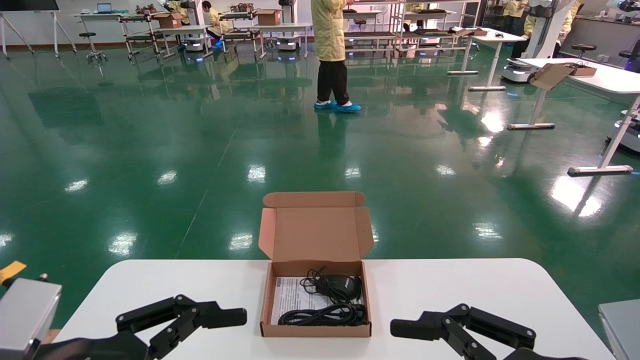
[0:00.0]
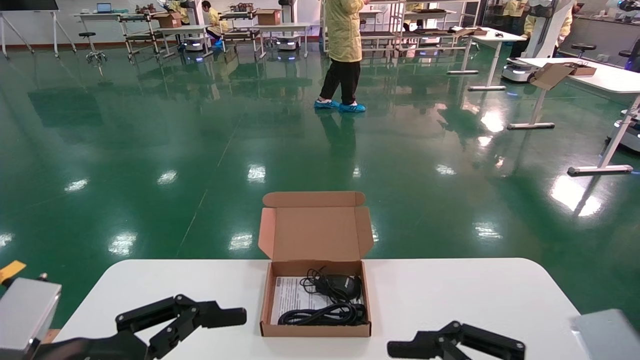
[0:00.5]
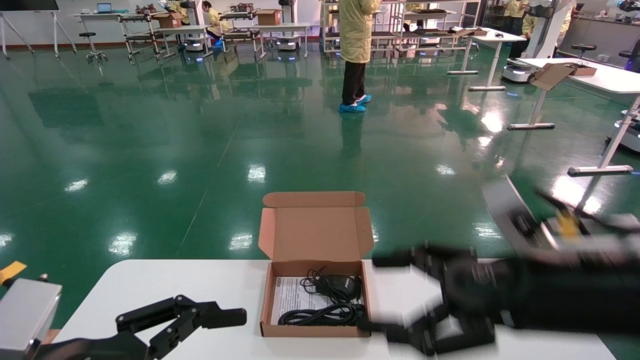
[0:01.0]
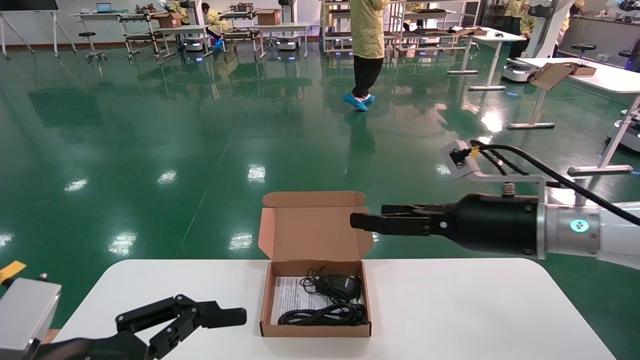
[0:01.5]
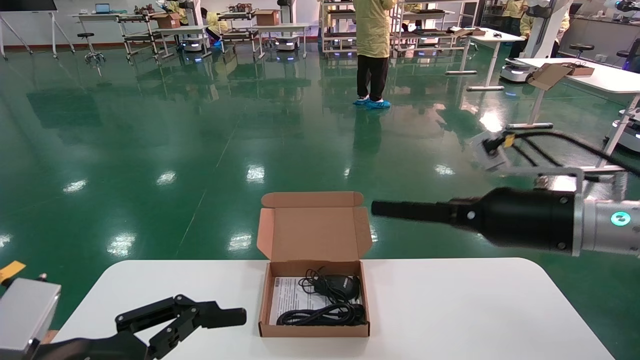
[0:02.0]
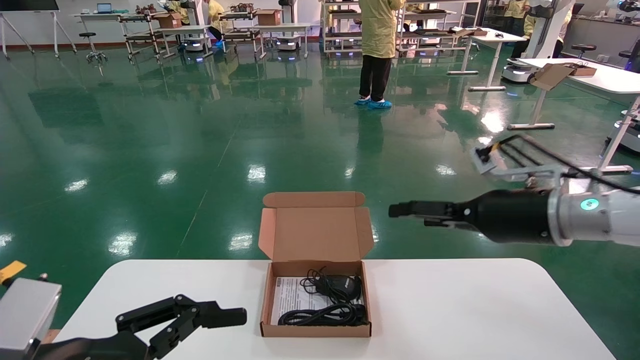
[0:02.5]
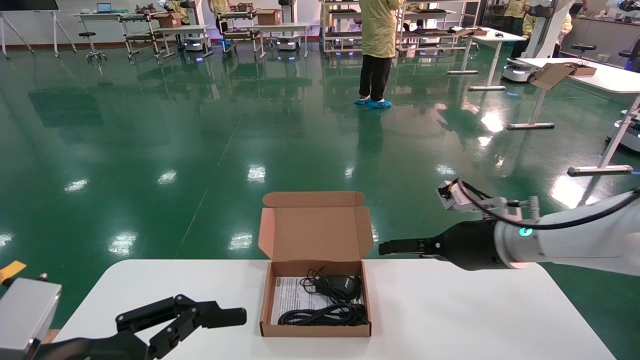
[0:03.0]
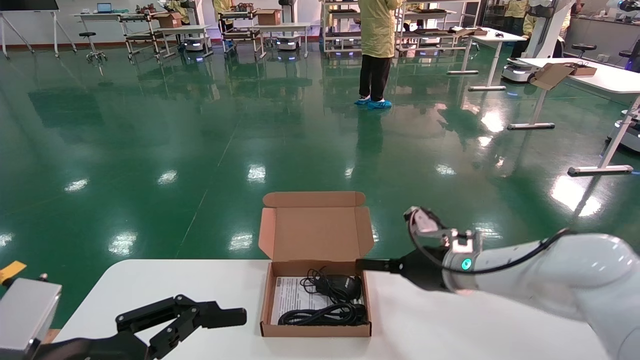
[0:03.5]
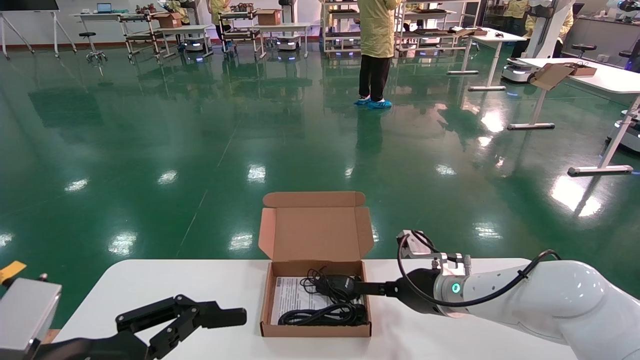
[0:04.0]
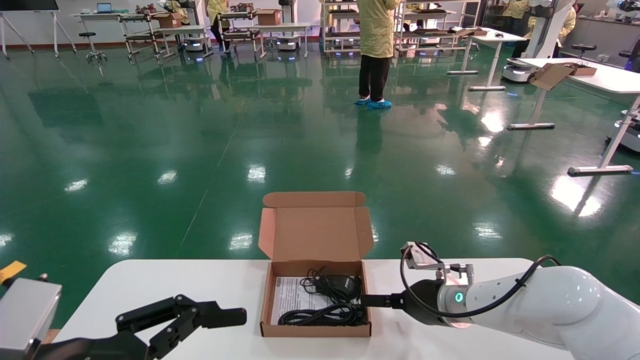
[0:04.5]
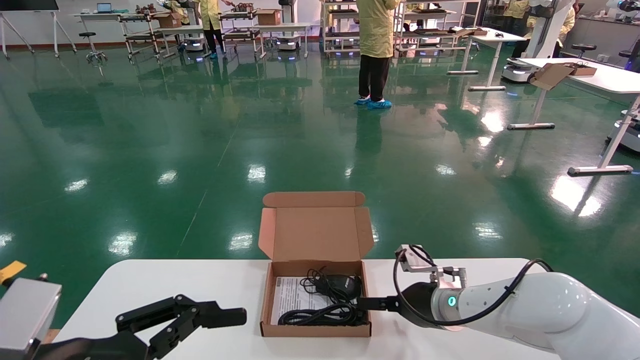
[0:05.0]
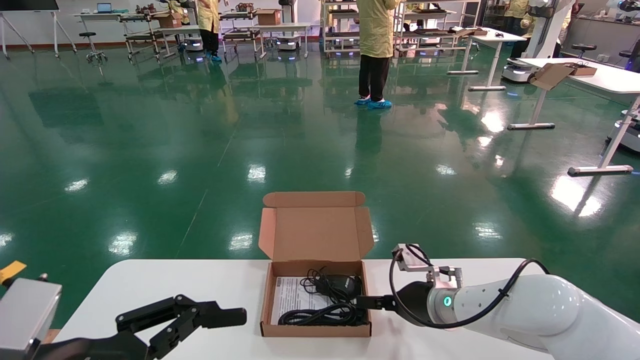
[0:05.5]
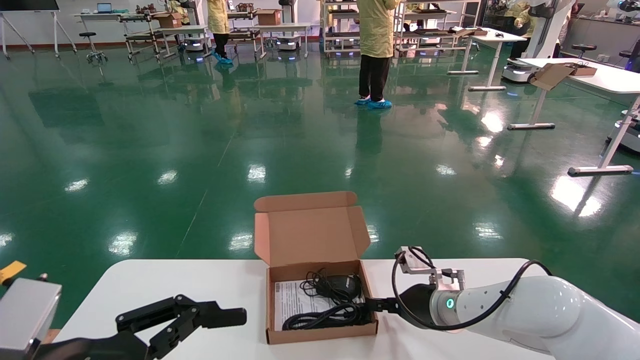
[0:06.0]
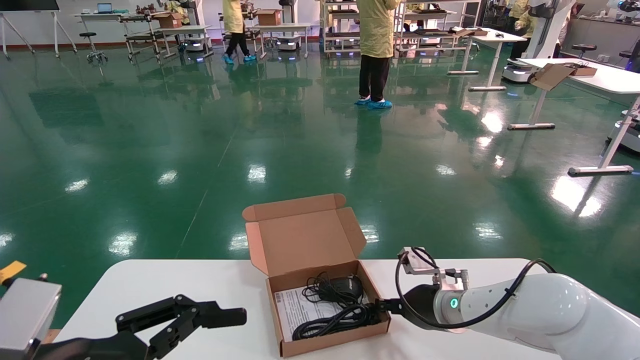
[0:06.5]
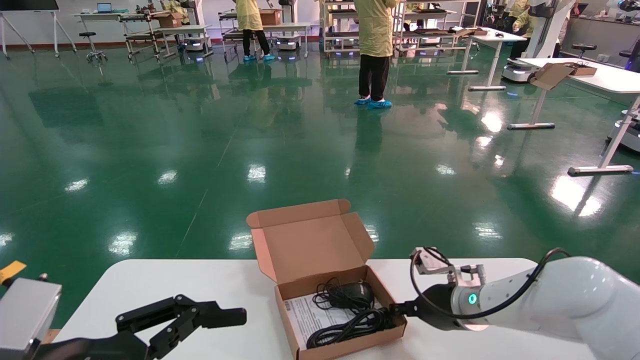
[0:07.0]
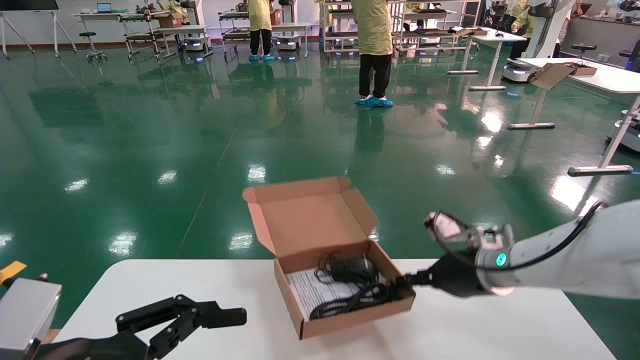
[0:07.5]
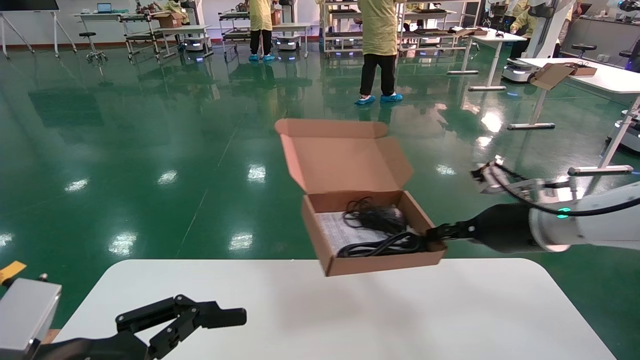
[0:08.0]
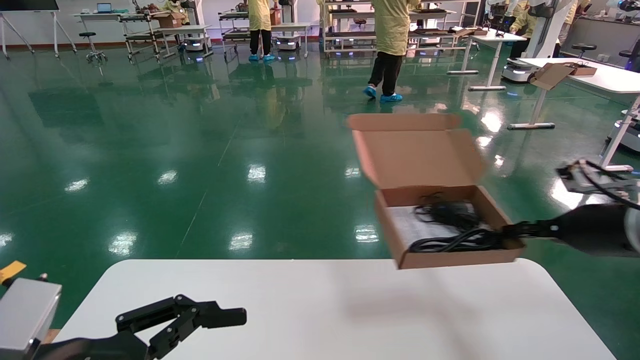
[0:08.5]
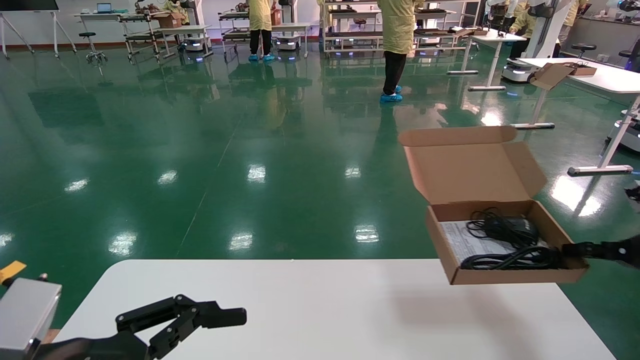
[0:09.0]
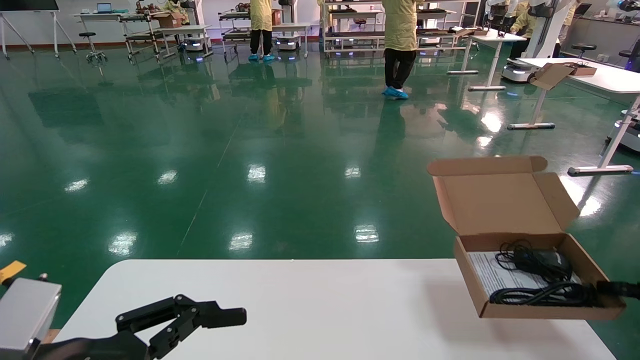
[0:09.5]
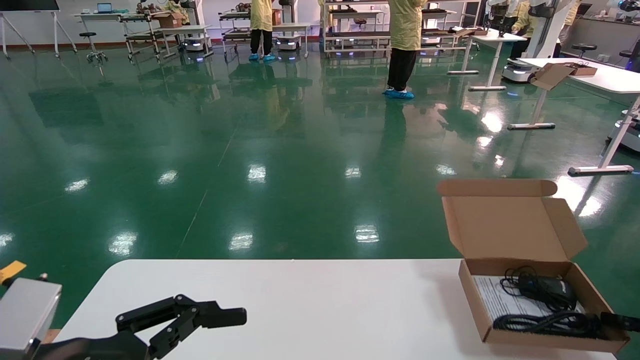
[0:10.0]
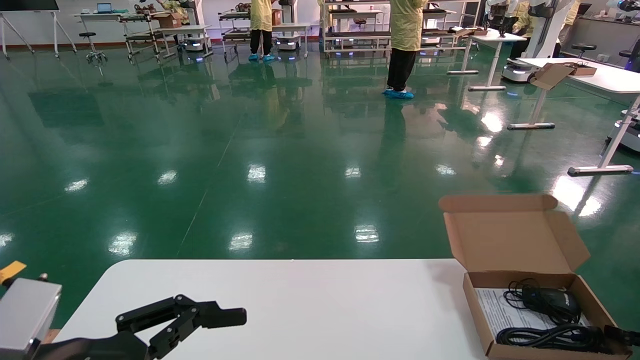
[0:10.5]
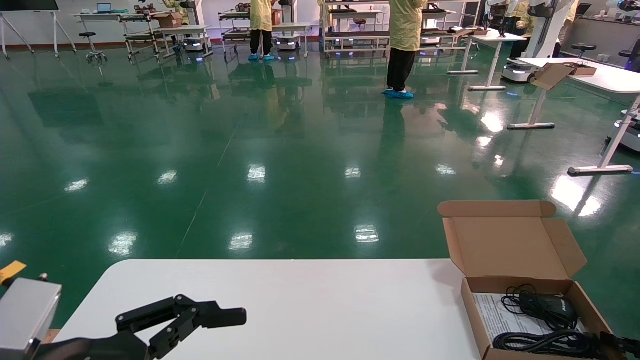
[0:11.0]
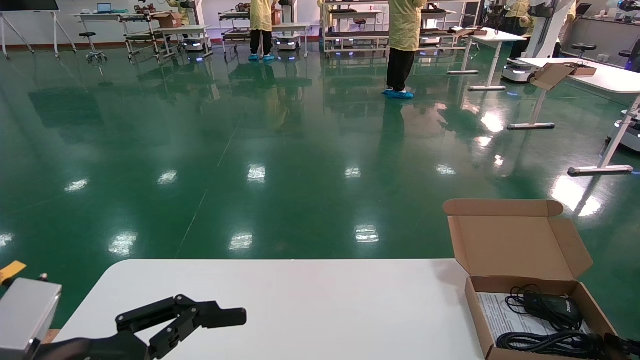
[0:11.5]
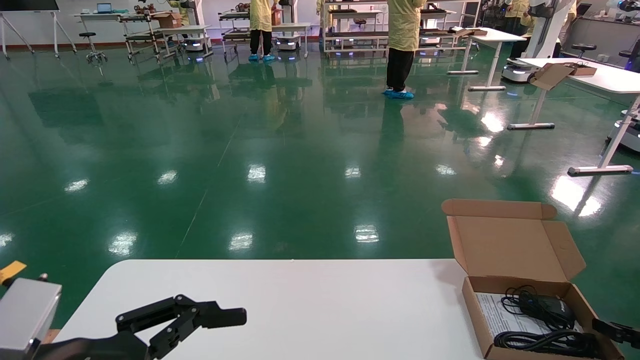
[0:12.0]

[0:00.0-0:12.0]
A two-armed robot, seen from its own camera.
Task of the whole recording: move the position of the storage box with accessories on the table.
Step, 0:01.0 to 0:06.5: Grab and pick up the open mouse box from the accessory packaging area.
Step, 0:07.0 to 0:11.5: Place the open mouse box onto the operation table.
0:00.0 to 0:02.0: The right gripper heads forward and upward, covering about 20 cm.
0:02.0 to 0:04.0: The right gripper shifts some 20 cm downward, forward and to the left.
0:04.0 to 0:06.0: The right gripper closes.
0:06.0 to 0:08.0: The right gripper travels upward and to the right by roughly 20 cm, and closes.
0:08.0 to 0:10.0: The right gripper moves to the right and downward, roughly 25 cm.
0:10.0 to 0:12.0: The grippers stay close to where they were, moving slightly.

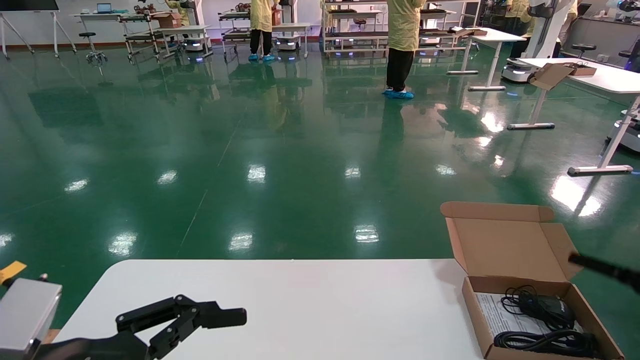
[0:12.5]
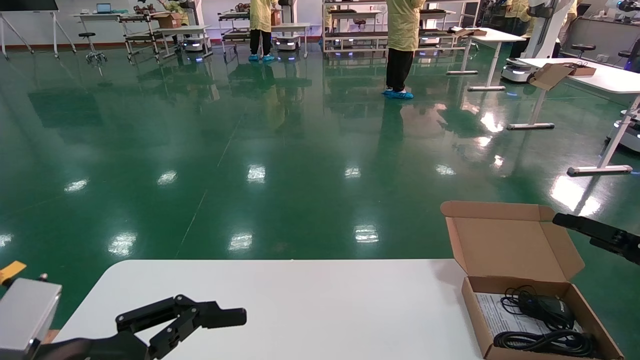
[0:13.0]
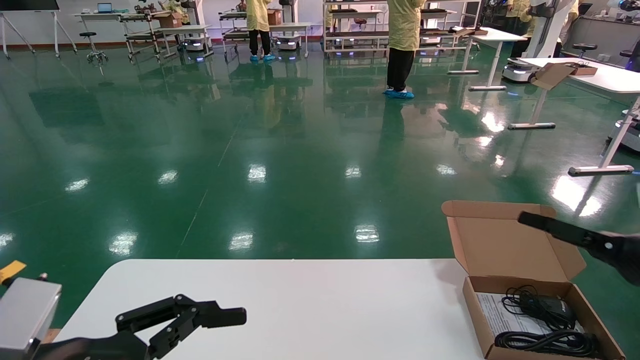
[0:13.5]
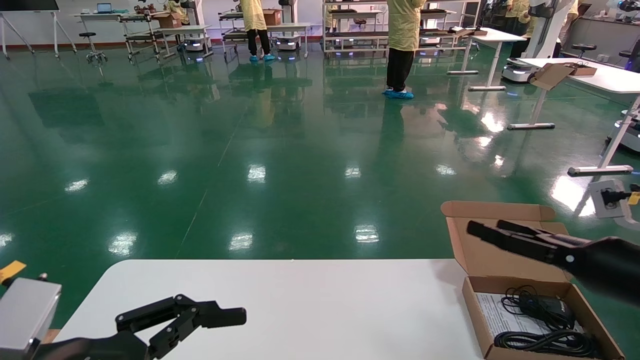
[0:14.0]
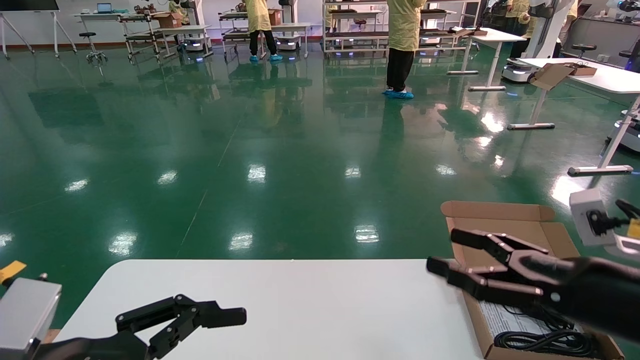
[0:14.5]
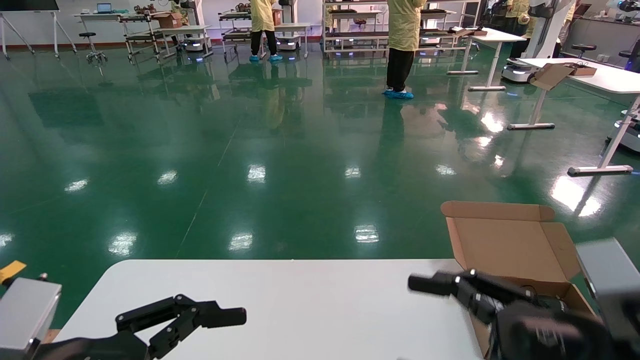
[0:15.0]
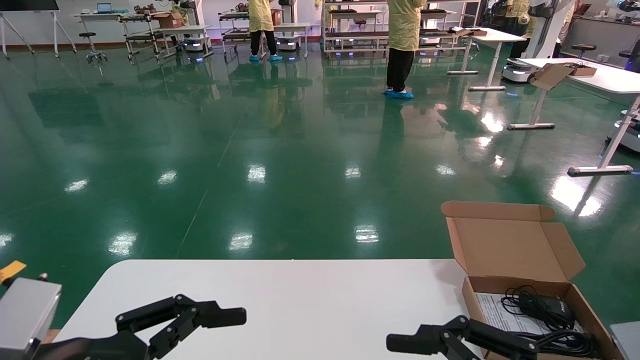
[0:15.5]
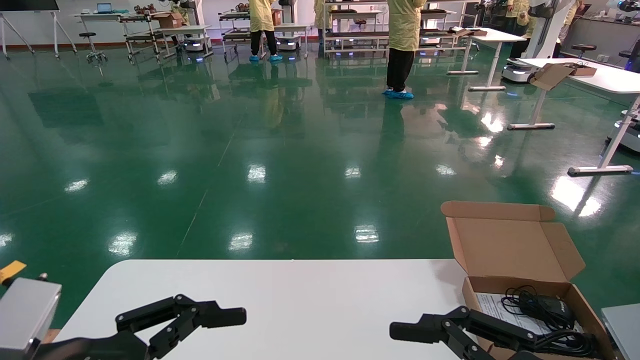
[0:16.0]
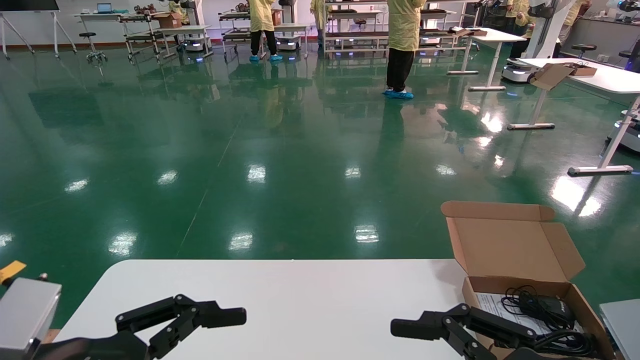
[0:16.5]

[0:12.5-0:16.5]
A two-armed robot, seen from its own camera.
Task of the whole recording: move the position of the storage box with accessories on the table.
0:12.5 to 0:14.5: The right gripper moves to the left and backward, about 20 cm, and opens its fingers.
0:14.5 to 0:16.5: The right gripper moves backward and to the left, some 10 cm.
